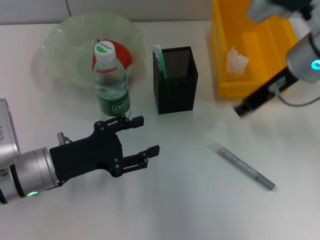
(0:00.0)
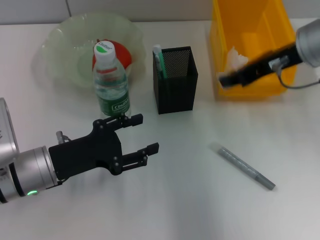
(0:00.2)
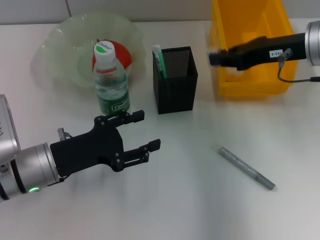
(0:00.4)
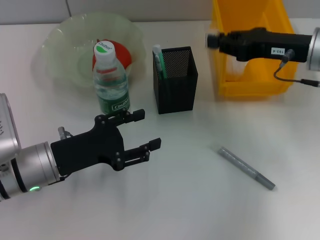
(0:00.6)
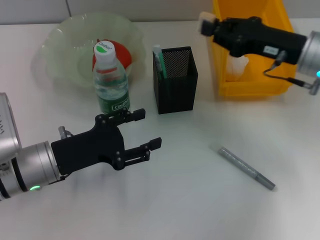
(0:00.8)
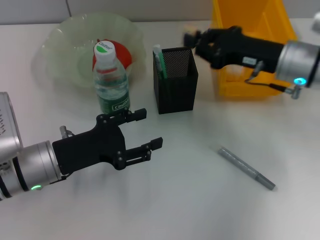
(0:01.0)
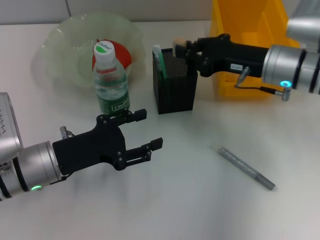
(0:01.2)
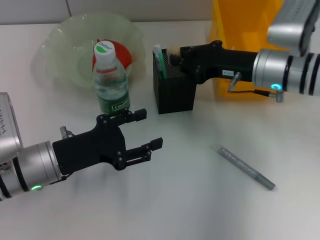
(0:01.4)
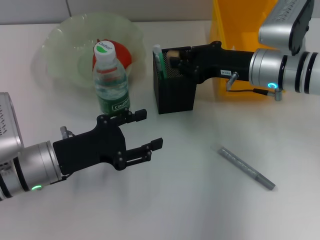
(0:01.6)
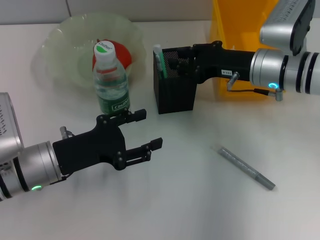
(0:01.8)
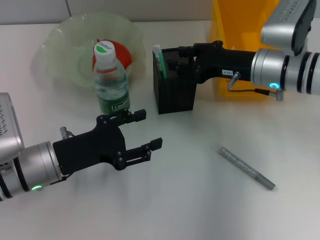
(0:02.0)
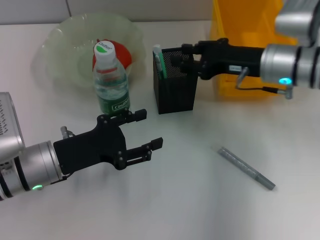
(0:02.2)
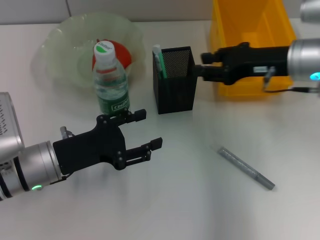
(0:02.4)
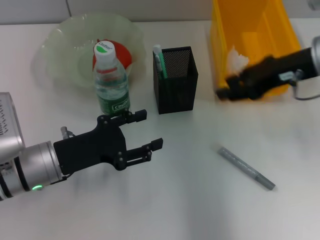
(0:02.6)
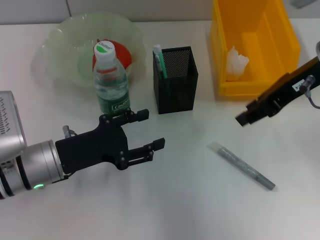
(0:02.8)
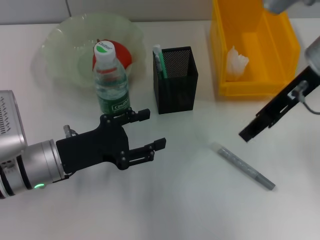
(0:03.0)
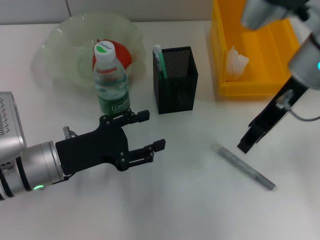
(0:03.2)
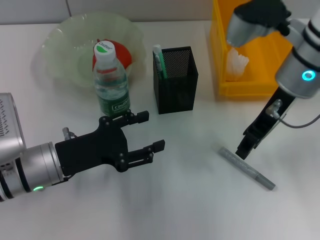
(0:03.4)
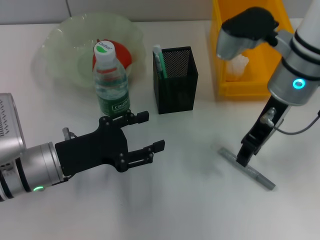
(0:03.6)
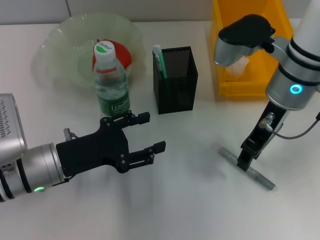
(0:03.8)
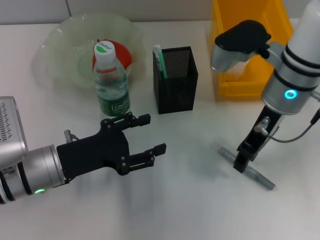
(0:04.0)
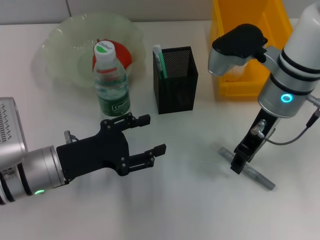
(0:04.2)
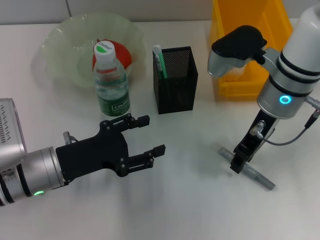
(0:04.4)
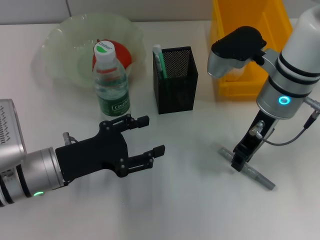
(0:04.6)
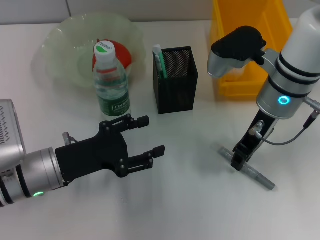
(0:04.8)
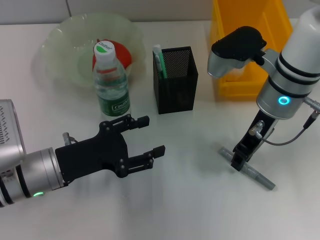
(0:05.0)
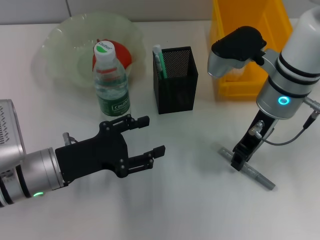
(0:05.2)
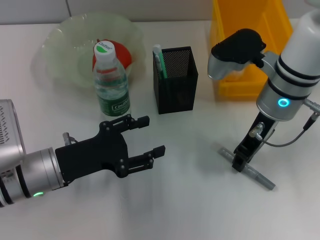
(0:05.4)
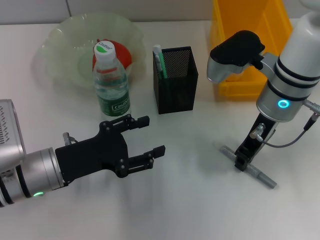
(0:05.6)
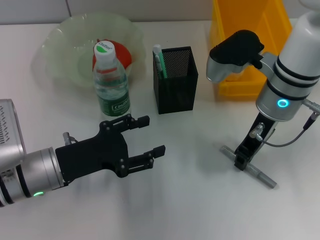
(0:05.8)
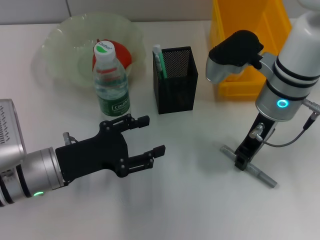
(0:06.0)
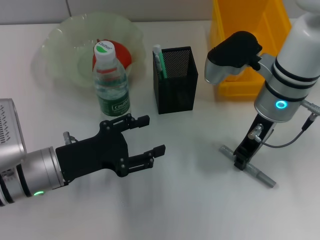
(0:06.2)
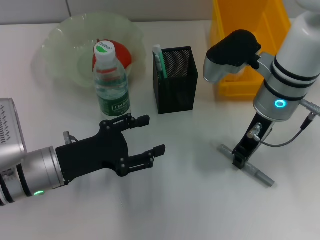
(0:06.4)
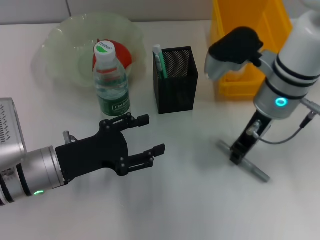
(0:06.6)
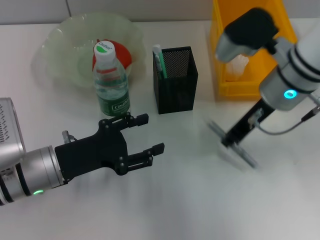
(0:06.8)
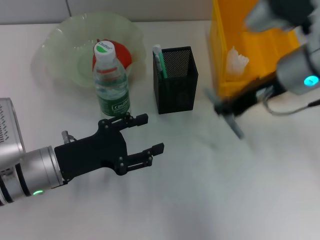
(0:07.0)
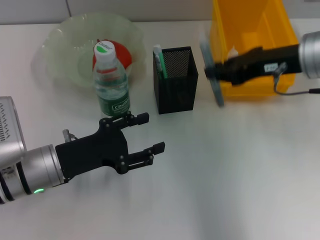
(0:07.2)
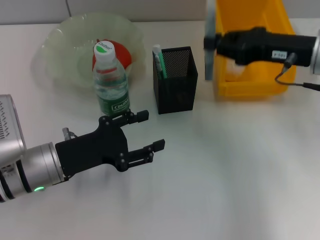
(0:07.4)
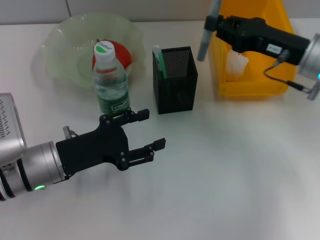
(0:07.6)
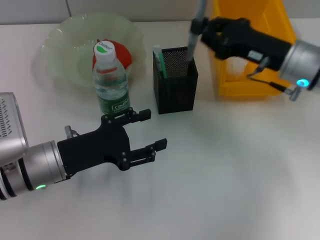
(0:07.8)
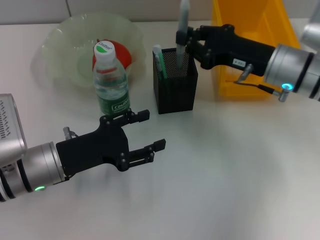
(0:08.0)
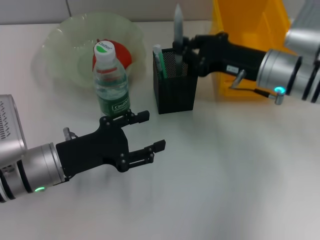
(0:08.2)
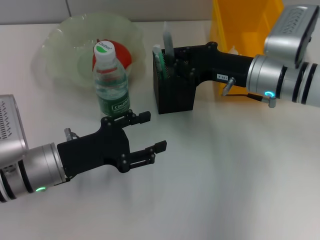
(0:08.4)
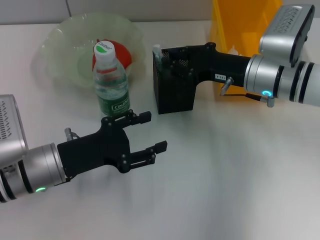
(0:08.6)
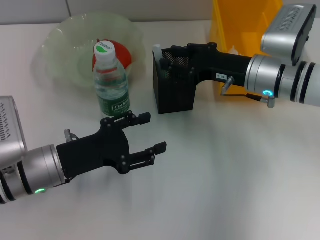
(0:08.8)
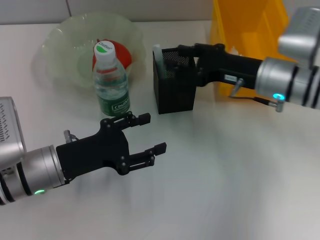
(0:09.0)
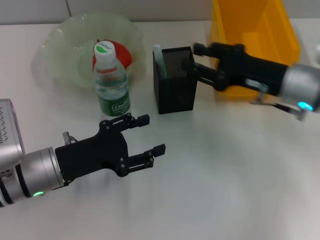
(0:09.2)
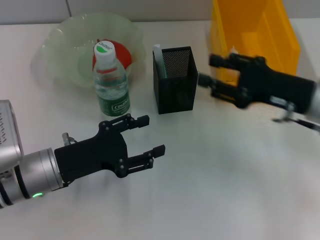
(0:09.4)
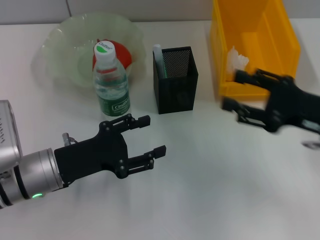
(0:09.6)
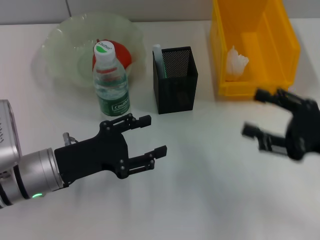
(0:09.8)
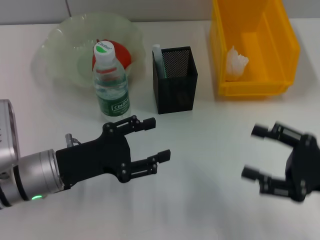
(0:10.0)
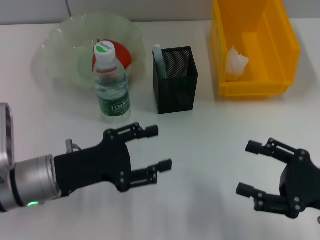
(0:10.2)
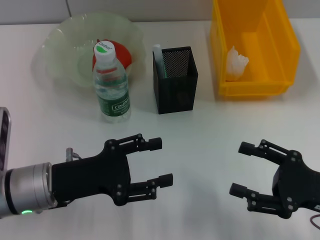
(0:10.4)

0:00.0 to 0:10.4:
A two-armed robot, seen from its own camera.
Step, 0:00.0 to 0:02.0: Put the eraser into the pen holder with the right hand.
Step, 0:02.2 to 0:06.2: Grab the gray glue with the right hand.
Step, 0:06.4 to 0:08.8: Place the gray glue into the pen holder with the right hand.
0:00.0 to 0:01.4: The right gripper shifts approximately 10 cm downward.
0:01.4 to 0:03.0: The right gripper goes roughly 10 cm upward, and opens its fingers.
0:03.0 to 0:04.4: The right gripper travels downward by approximately 10 cm.
0:04.4 to 0:06.0: The two grippers keep their place.
0:06.0 to 0:07.4: The right gripper shifts about 10 cm to the right.
0:07.4 to 0:09.0: The right gripper heads downward, covering approximately 5 cm, and opens.
0:09.0 to 0:10.4: The right gripper travels backward and to the right by roughly 20 cm, and opens its fingers.

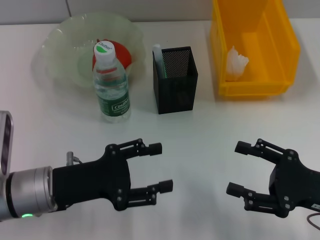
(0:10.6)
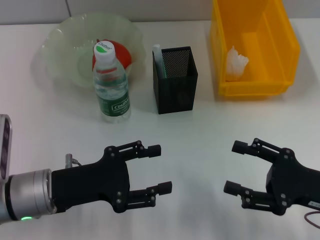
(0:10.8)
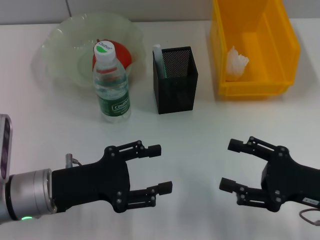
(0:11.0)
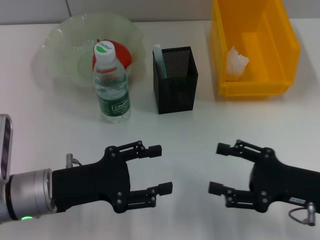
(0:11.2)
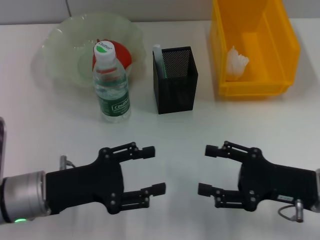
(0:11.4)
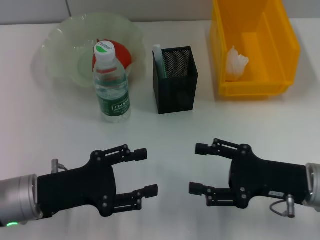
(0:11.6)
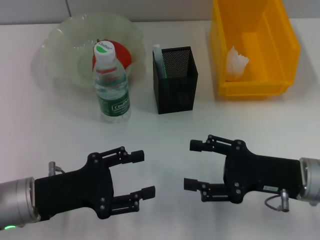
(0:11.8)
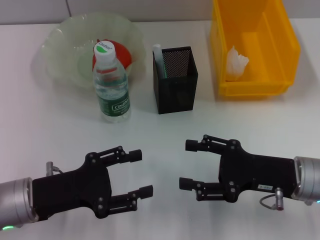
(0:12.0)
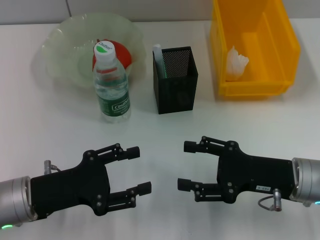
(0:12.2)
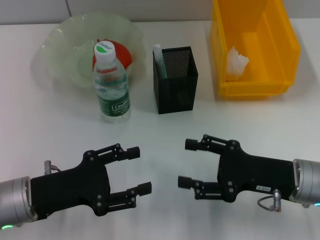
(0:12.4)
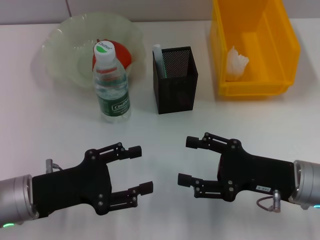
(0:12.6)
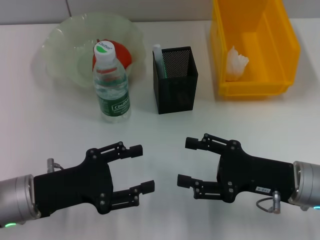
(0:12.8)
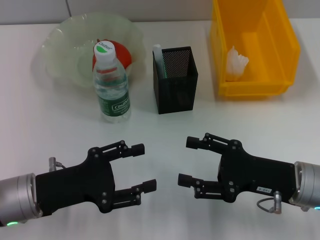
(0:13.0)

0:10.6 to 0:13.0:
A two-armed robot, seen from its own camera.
0:10.6 to 0:11.8: The right gripper ends up about 5 cm from where it was.
0:11.8 to 0:13.0: Both grippers stay put.

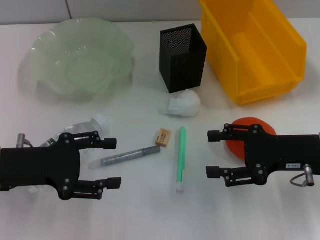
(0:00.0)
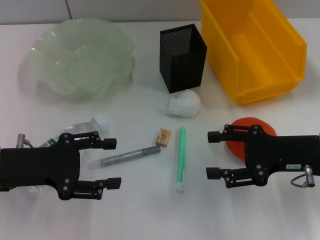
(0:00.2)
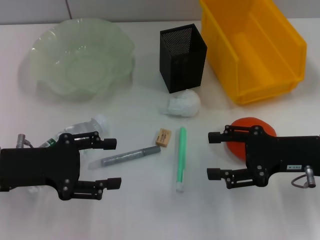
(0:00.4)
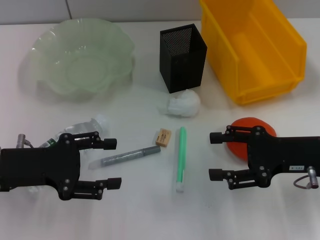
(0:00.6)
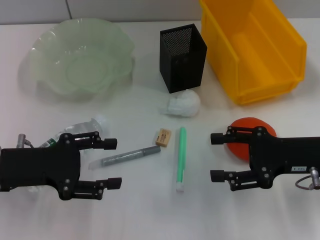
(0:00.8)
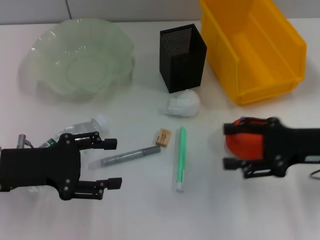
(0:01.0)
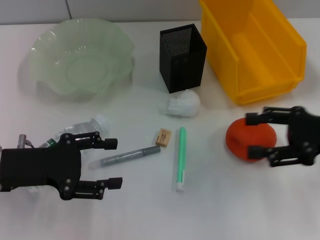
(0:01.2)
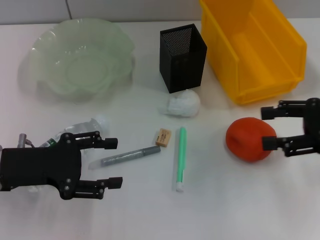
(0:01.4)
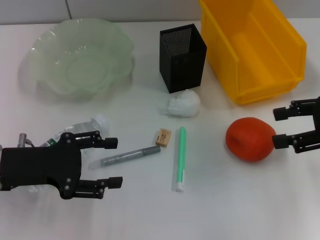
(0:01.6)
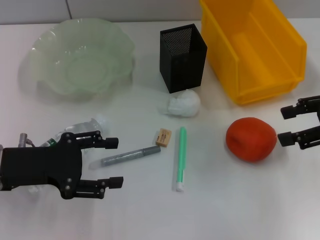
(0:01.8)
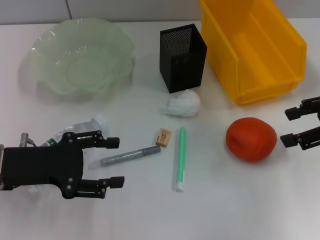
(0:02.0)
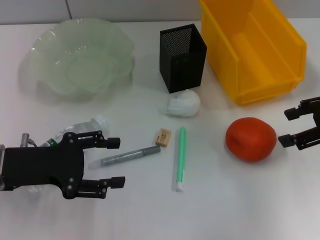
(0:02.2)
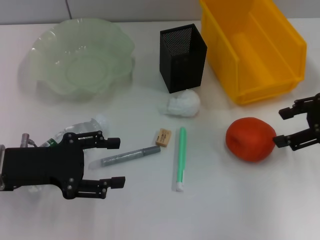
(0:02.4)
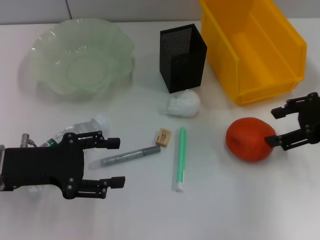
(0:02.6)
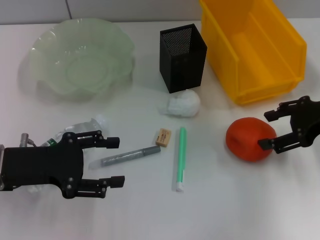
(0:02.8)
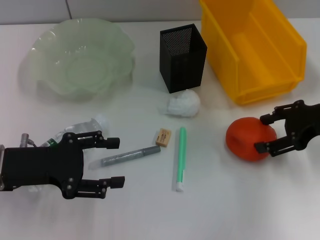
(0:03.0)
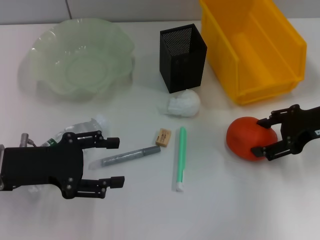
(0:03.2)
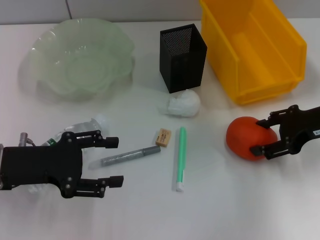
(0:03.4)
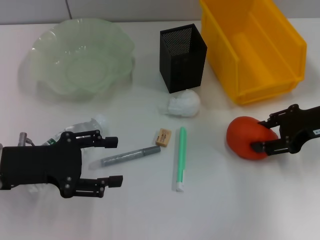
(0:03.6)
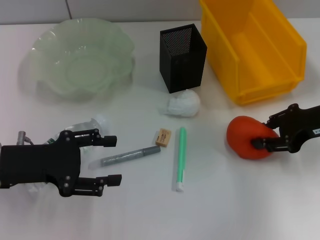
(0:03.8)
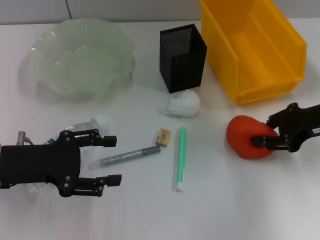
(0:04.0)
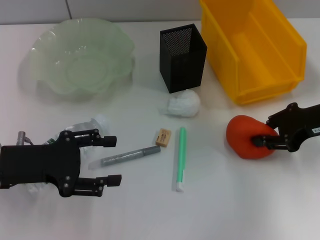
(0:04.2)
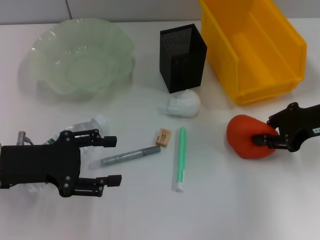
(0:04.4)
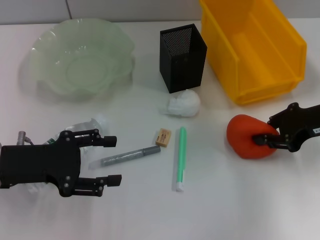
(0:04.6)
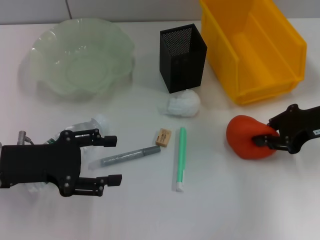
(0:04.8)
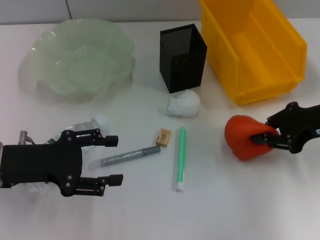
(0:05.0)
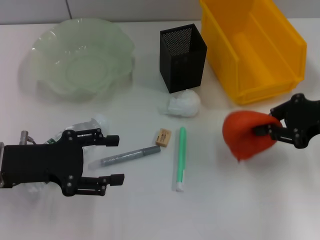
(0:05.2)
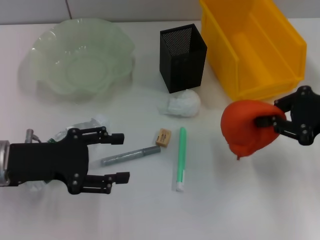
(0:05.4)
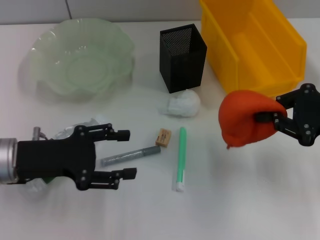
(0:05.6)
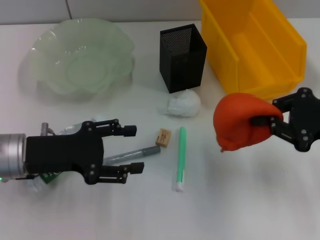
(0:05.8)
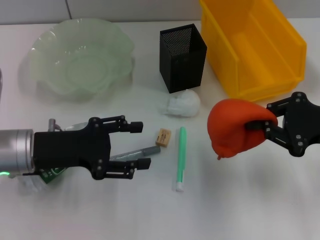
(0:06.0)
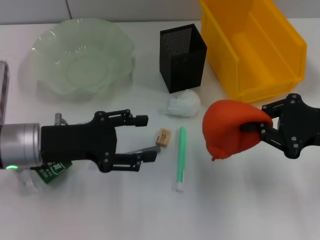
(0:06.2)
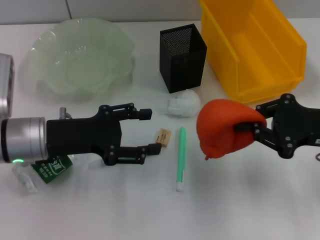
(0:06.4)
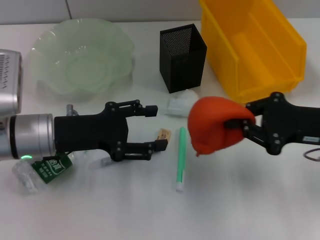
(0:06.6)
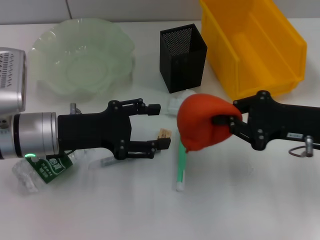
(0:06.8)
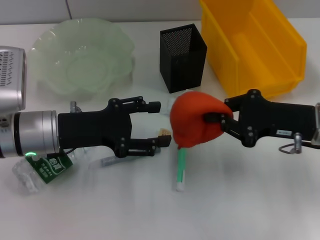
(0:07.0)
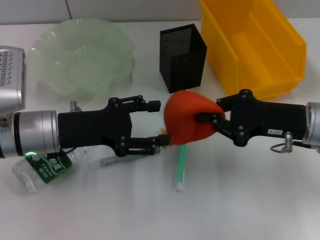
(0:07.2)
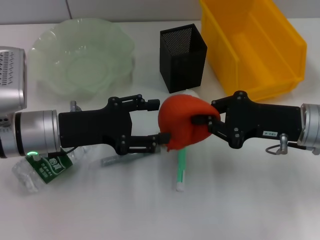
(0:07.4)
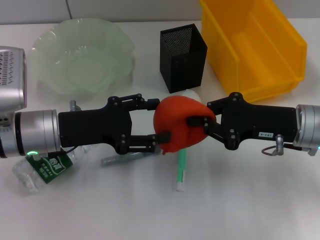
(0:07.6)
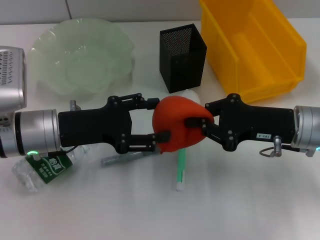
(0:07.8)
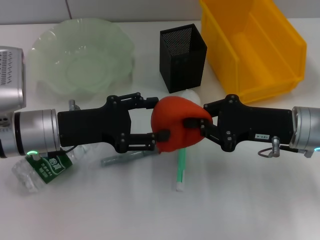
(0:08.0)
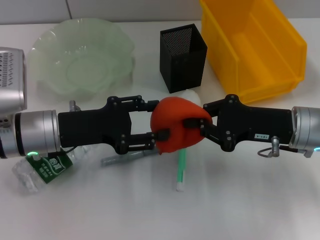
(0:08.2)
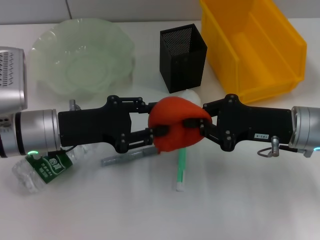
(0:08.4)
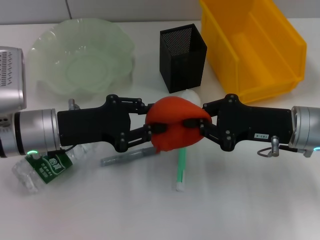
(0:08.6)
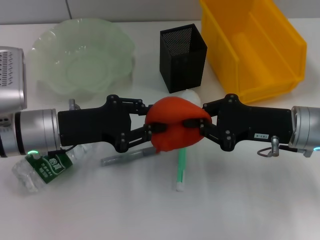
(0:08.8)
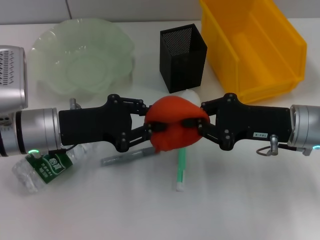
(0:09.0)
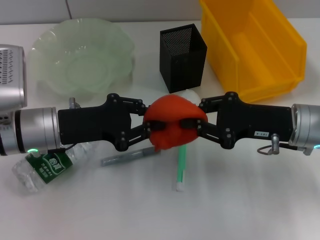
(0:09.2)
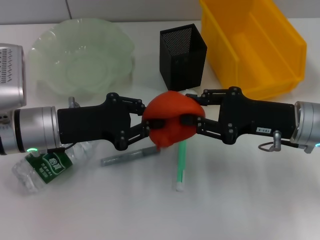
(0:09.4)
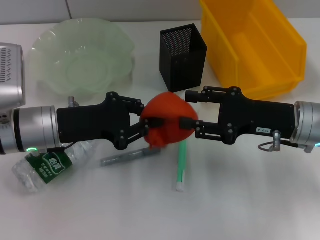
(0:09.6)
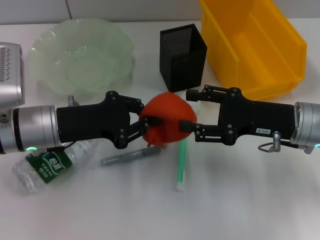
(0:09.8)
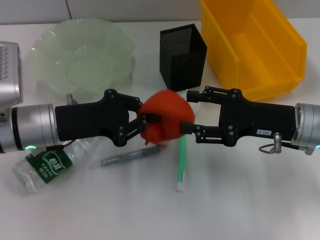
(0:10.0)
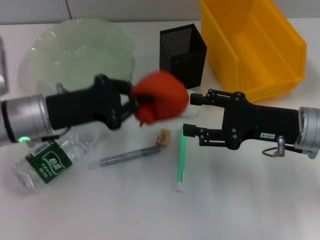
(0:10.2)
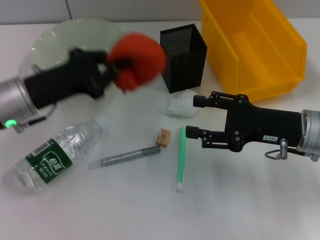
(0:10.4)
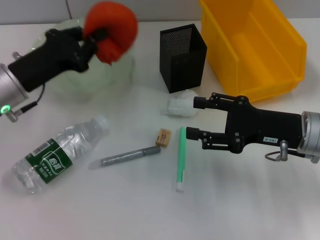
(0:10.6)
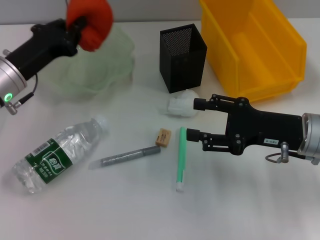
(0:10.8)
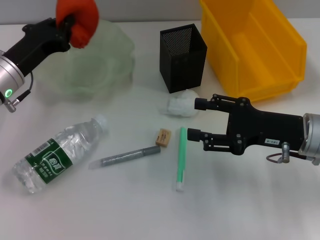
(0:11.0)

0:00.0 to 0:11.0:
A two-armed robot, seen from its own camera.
Step, 0:00.0 to 0:04.4: Grab the orange with the right hand.
Step, 0:04.6 to 0:10.0: Pass the orange from the right hand to the left hand.
0:00.0 to 0:01.6: The right gripper shifts approximately 10 cm upward and to the right.
0:01.6 to 0:03.2: The right gripper shifts by about 5 cm.
0:03.2 to 0:04.8: The right gripper closes its fingers.
0:04.8 to 0:06.2: The right gripper moves backward, about 5 cm.
0:06.2 to 0:07.8: The right gripper moves to the left, some 5 cm.
0:07.8 to 0:09.4: The right gripper opens up, while the left gripper closes its fingers.
0:09.4 to 0:11.0: The right gripper opens up, while the left gripper moves forward and to the left, some 5 cm.
